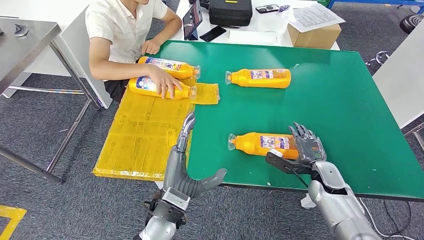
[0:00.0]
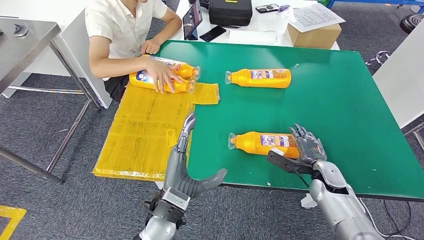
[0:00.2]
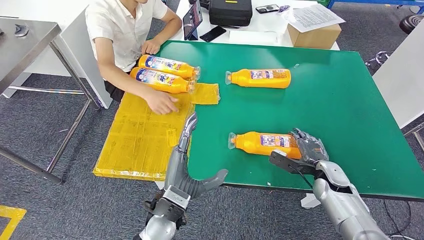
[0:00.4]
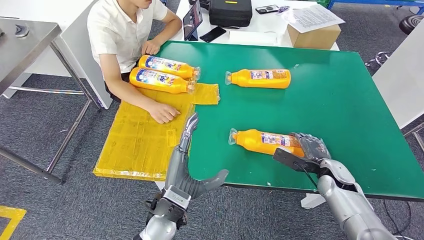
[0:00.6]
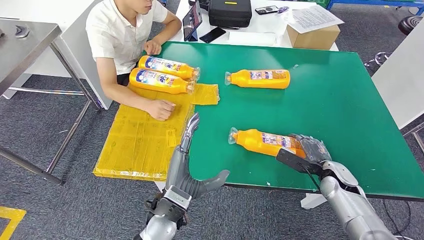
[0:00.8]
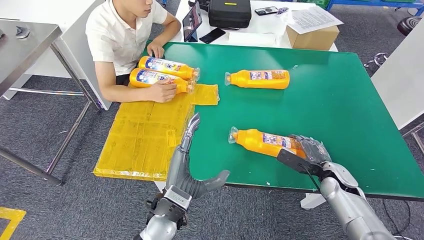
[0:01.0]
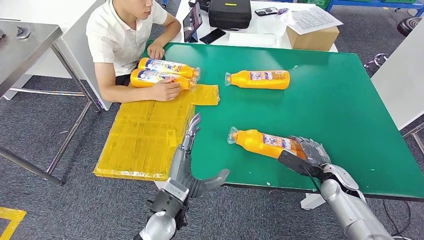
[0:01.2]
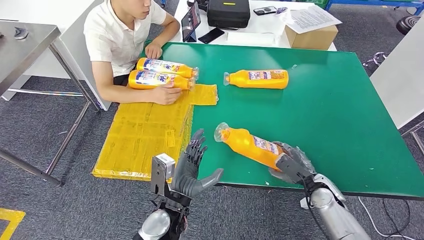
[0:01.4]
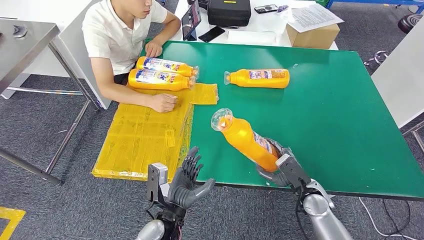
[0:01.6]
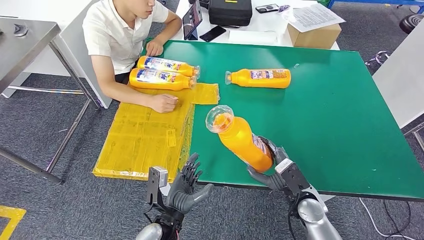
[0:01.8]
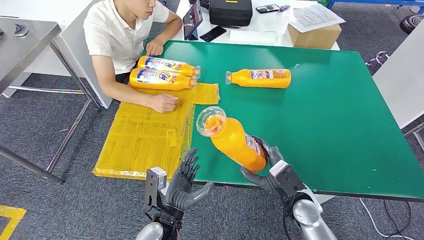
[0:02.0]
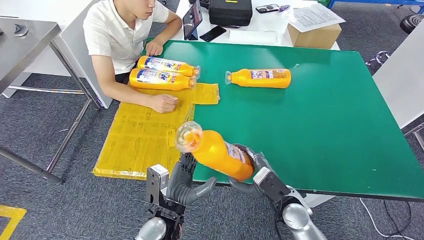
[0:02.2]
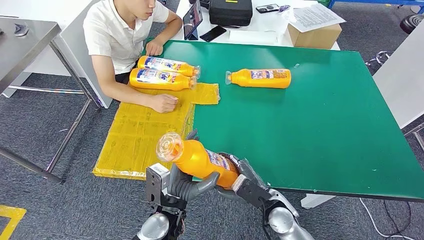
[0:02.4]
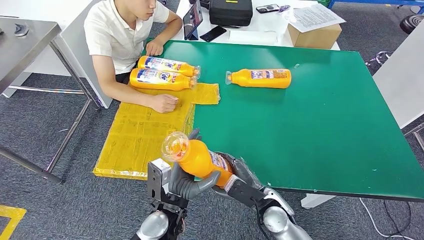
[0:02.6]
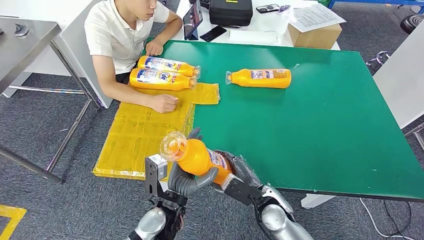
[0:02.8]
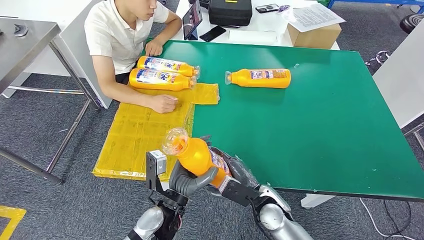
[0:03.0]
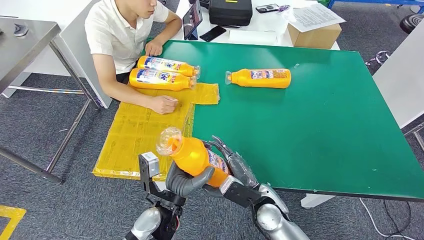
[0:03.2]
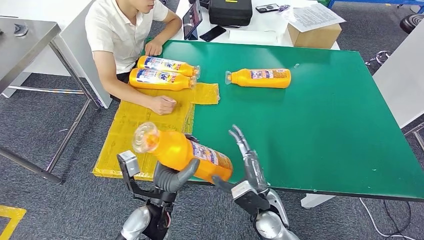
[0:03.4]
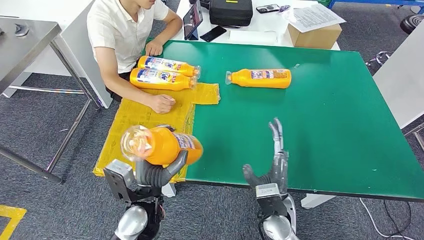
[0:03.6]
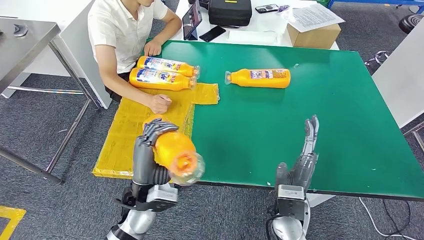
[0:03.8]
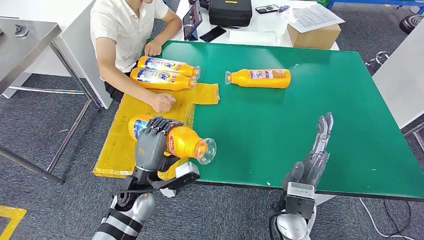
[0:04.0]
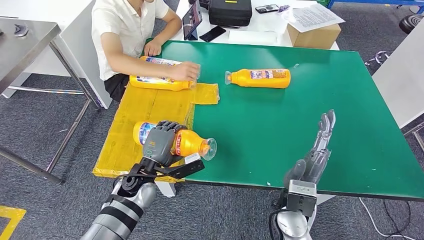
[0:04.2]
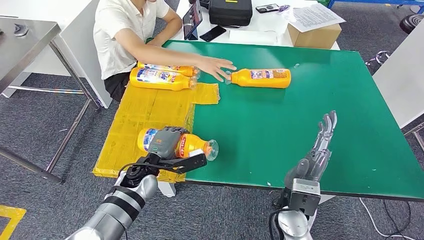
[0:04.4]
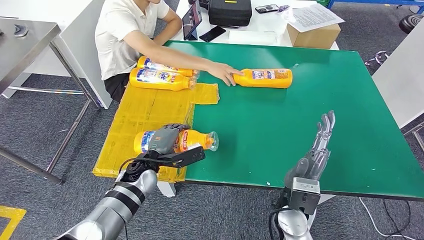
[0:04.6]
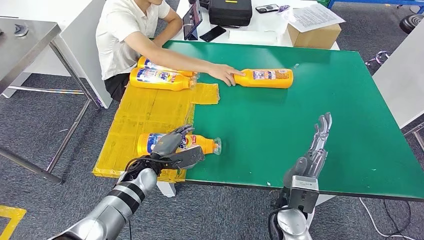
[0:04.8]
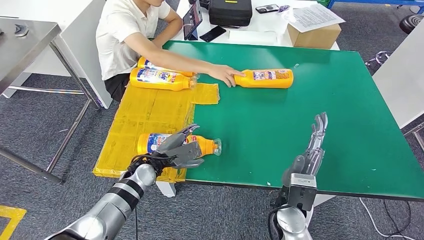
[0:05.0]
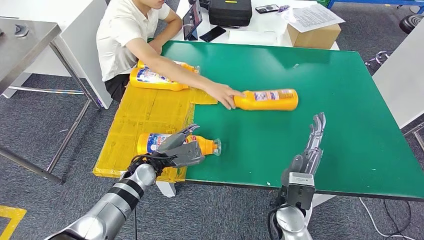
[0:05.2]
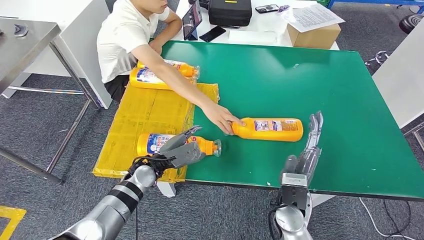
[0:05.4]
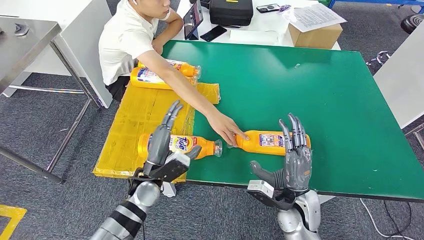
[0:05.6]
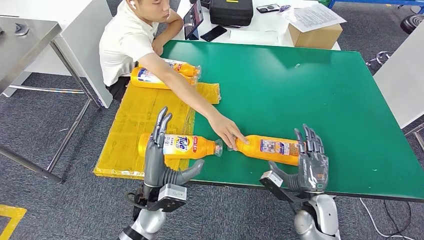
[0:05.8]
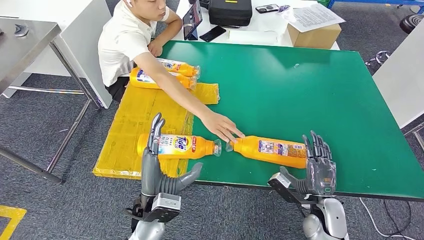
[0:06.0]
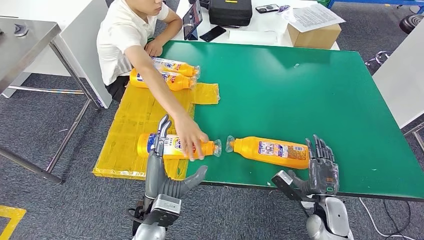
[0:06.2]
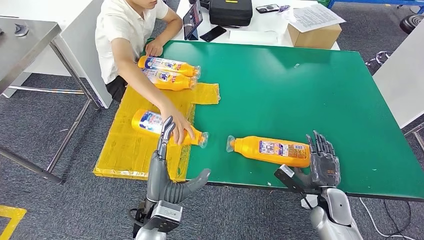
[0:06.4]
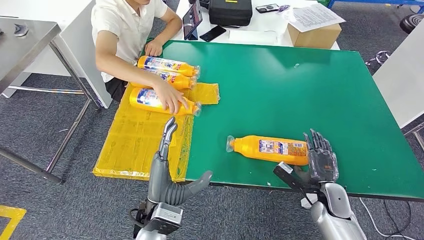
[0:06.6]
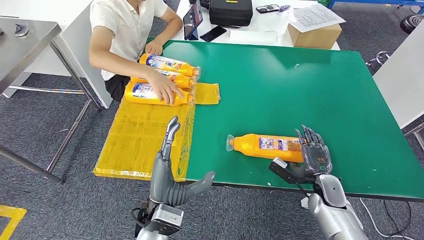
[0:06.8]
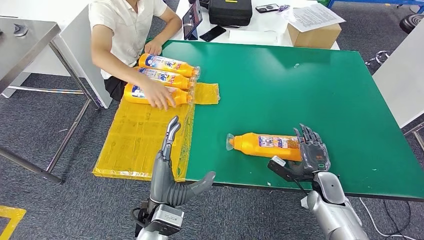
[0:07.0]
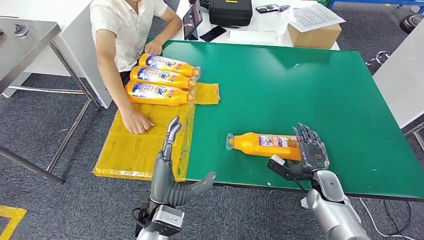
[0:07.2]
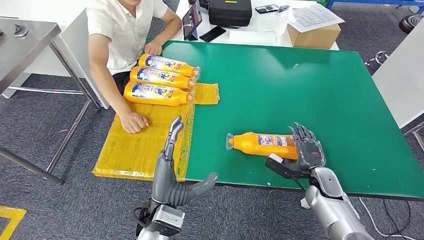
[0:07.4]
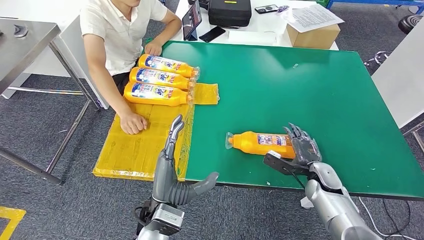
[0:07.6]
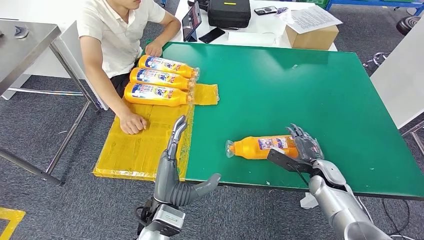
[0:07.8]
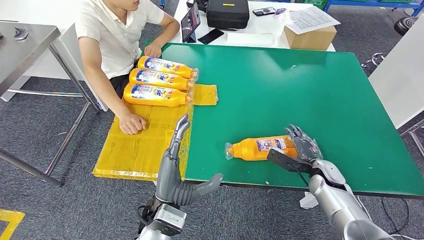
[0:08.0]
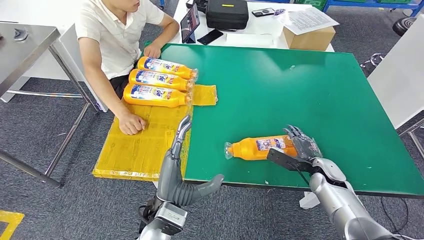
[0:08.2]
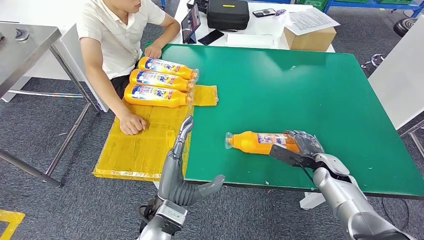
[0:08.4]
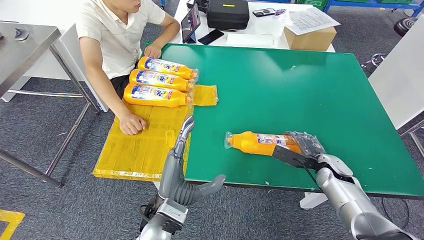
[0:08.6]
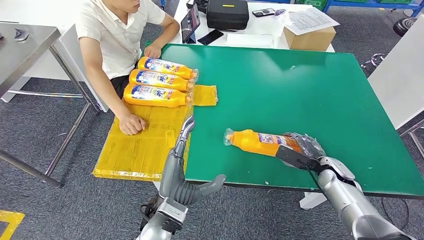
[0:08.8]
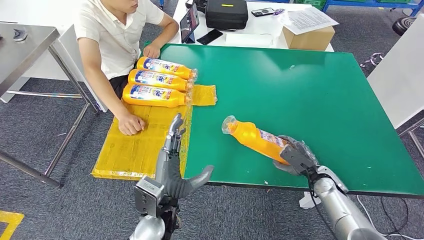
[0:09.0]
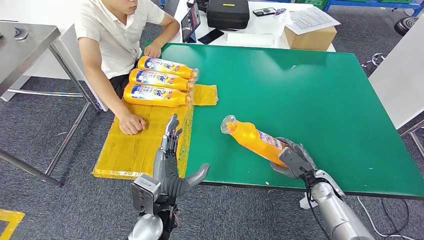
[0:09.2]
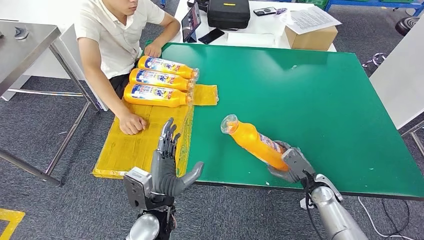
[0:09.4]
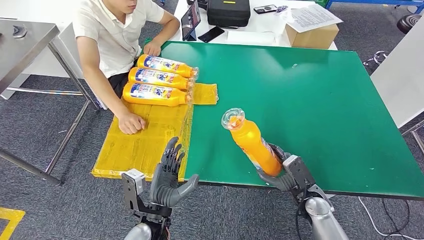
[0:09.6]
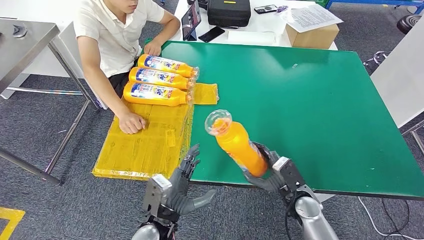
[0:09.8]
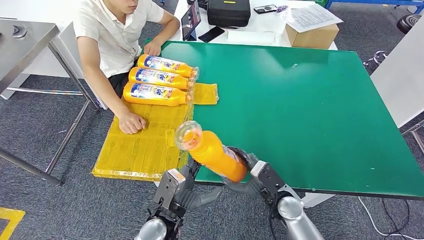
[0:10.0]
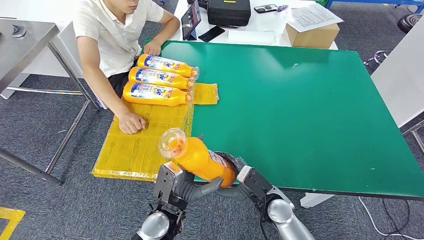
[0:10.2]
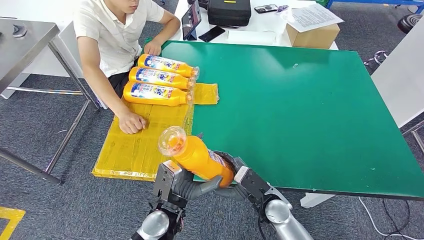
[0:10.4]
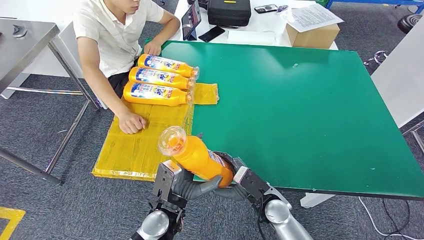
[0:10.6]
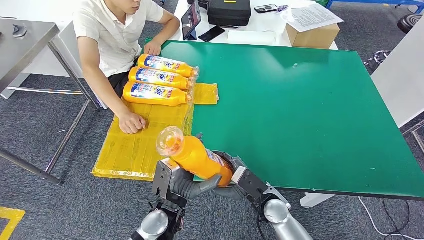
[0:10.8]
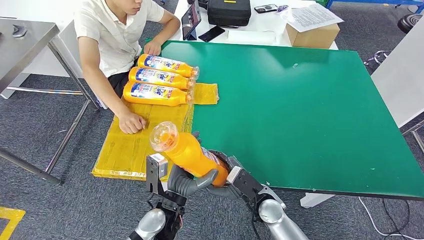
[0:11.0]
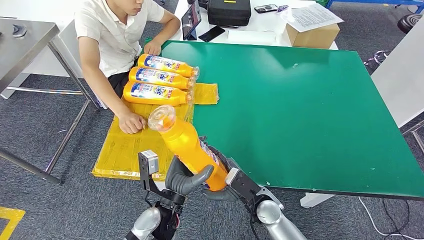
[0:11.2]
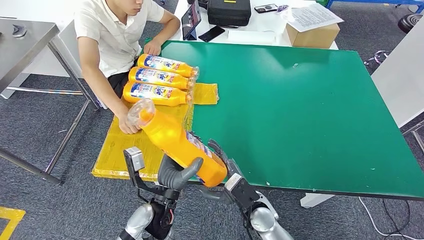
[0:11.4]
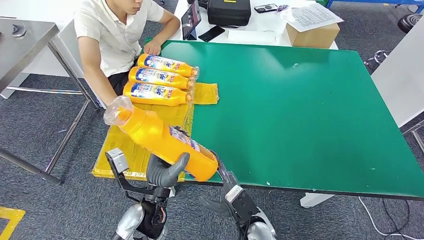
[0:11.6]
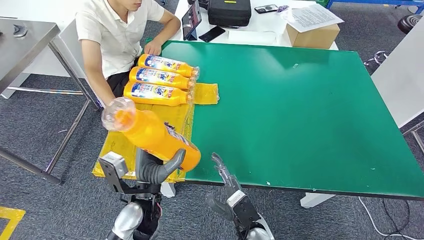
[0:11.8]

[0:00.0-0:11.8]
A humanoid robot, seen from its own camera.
Step, 0:00.0 to 0:02.8: Pick up the fast-moving consumer goods bottle from the table.
Step, 0:03.2 to 0:05.6: Flip the fast-moving consumer goods bottle to the front side.
Step, 0:06.2 to 0:11.0: Pick up the fast-moving consumer goods bottle from the table.
0:03.0 to 0:04.4: The left hand is displaced forward and to the left by approximately 15 cm. The right hand shifts some 5 cm upward.
0:06.0 to 0:07.4: The right hand shifts approximately 10 cm forward.
0:10.4 to 0:11.8: The left hand changes place by some 5 cm, while the right hand moves backward and to the left, some 10 cm.

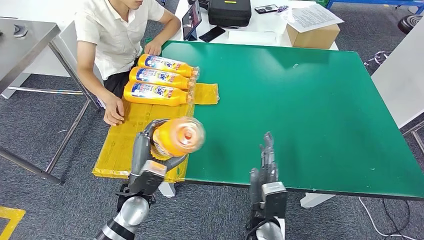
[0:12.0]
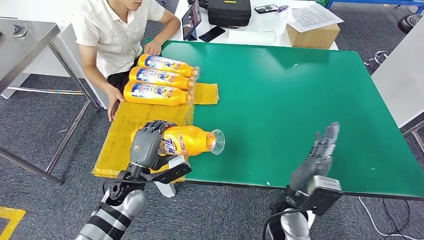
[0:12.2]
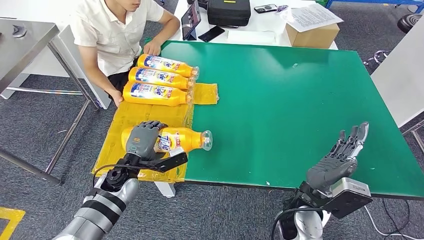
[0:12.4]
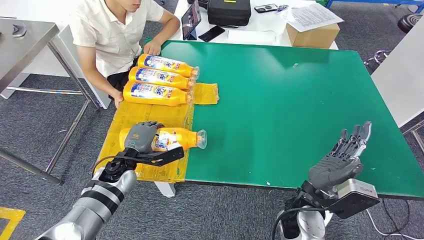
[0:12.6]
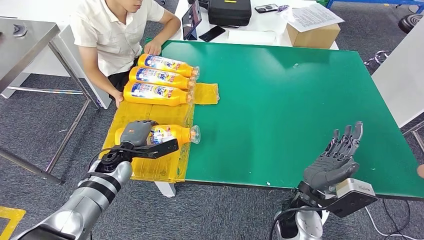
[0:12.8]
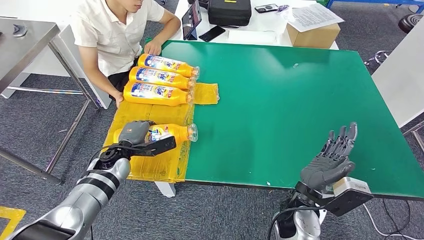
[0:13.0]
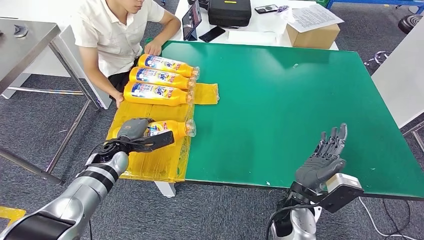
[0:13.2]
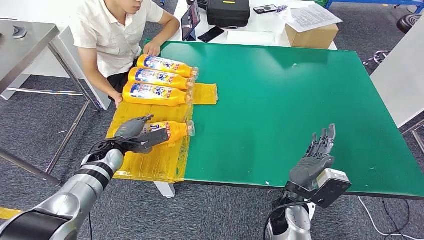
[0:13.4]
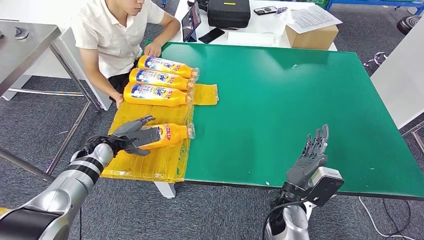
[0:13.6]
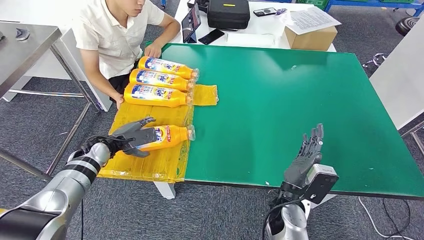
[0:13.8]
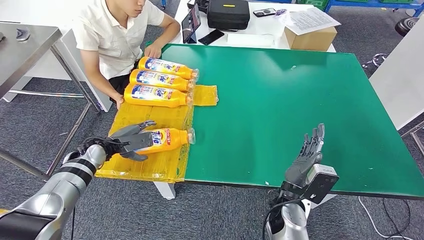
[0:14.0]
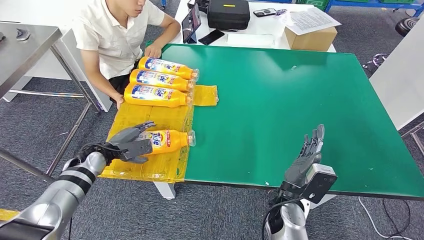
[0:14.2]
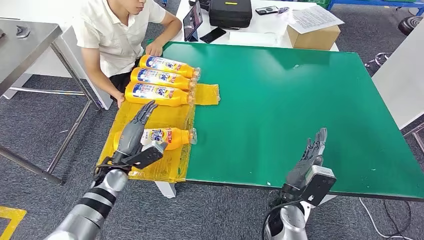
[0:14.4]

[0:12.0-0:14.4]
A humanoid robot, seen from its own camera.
Step, 0:12.0 to 0:14.2: Flip the fast-moving consumer goods bottle to the front side.
0:12.0 to 0:13.2: The right hand heads to the right and upward, covering some 10 cm. Meanwhile the left hand moves forward and to the left, approximately 15 cm.
0:13.2 to 0:14.4: The left hand travels backward by approximately 5 cm.
